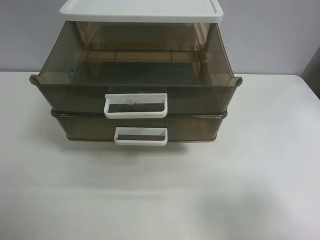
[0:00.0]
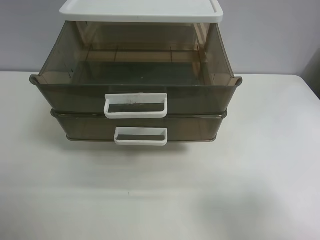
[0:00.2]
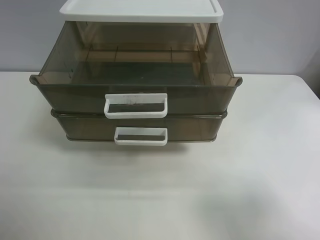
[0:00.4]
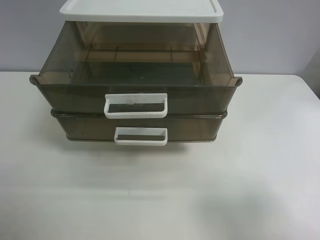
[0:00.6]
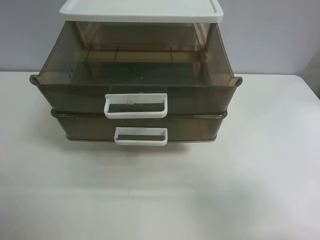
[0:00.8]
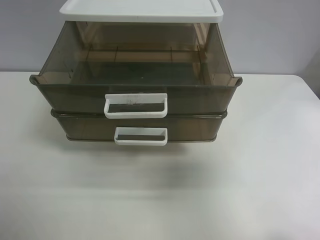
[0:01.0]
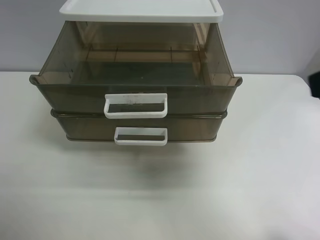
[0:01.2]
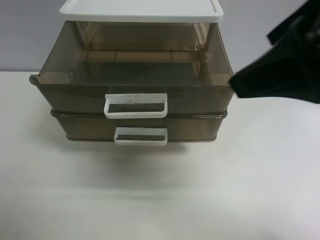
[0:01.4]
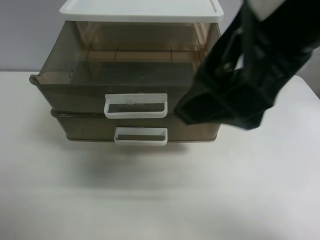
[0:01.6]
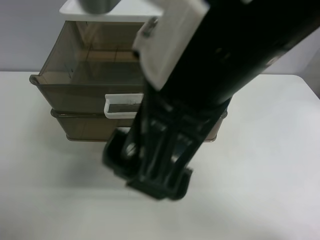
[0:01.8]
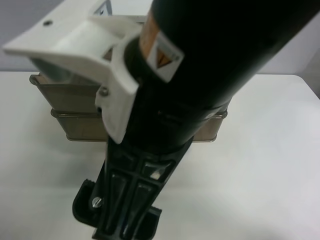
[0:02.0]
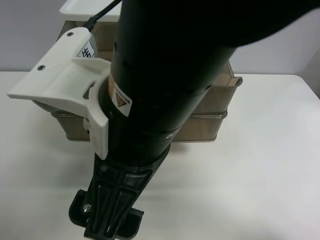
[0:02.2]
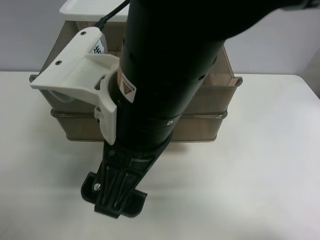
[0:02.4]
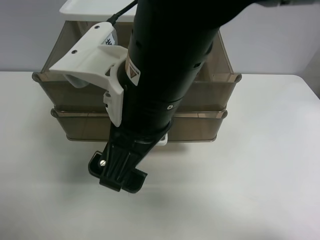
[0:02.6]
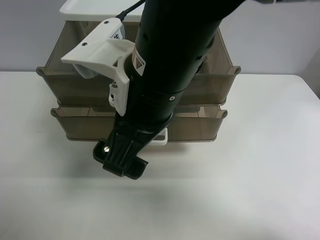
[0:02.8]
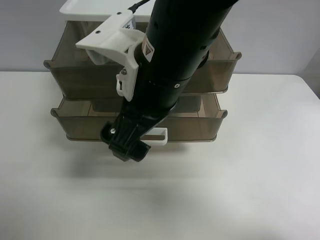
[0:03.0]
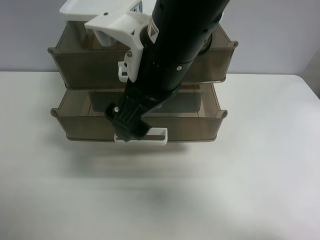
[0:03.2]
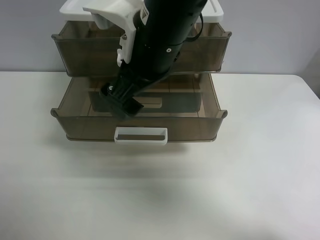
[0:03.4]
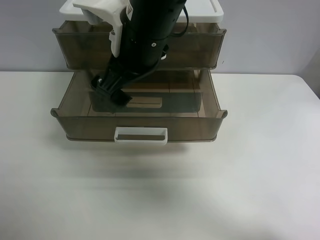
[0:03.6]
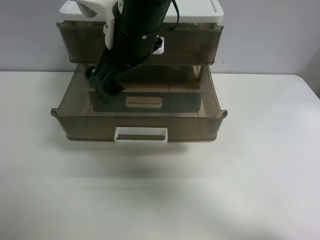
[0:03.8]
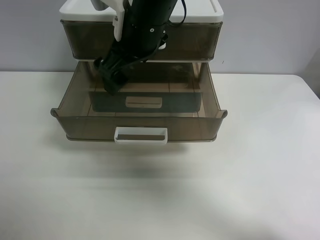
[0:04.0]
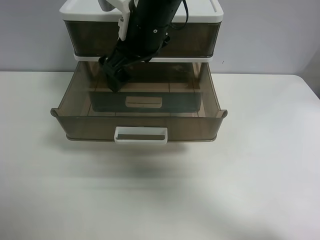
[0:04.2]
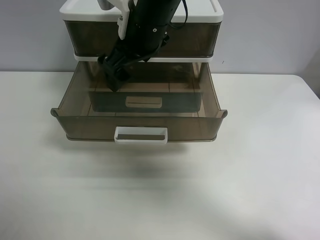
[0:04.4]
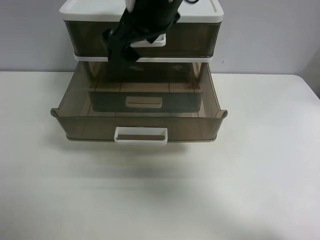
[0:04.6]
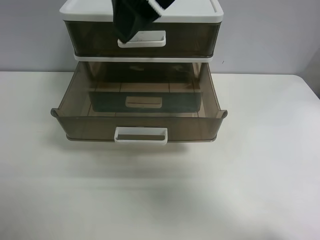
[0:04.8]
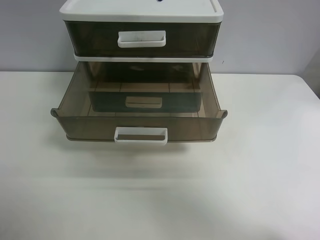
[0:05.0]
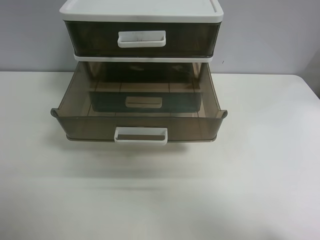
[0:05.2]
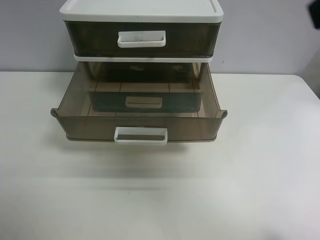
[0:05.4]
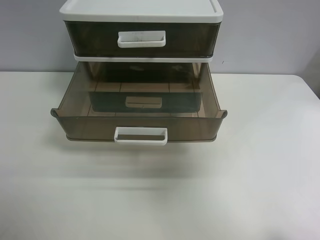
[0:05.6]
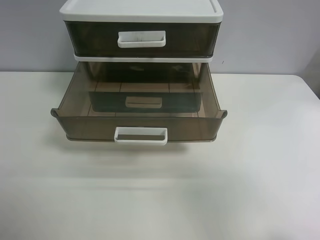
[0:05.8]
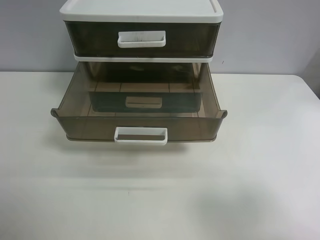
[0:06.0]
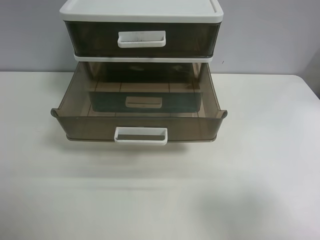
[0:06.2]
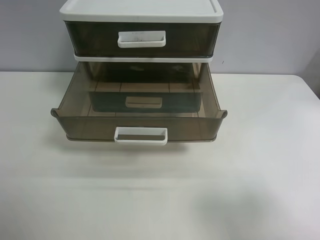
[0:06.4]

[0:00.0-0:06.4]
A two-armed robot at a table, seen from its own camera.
Task of the whole recording: close the top drawer.
Step, 0:00.0 to 0:02.4: Use the right gripper to touch the topmost layer of the storage cabinet.
Step, 0:02.6 to 0:04.4: Push the top drawer closed.
0:00.0 to 0:01.6: The right gripper shifts approximately 25 cm to the left, forward and upward.
0:01.6 to 0:03.2: The right gripper travels forward, downward and to the left by approximately 15 cm.
0:03.2 to 0:04.8: The right gripper shifts some 10 cm upward.
0:04.8 to 0:06.4: The right gripper shifts approximately 35 cm to the right, backward and downward.
